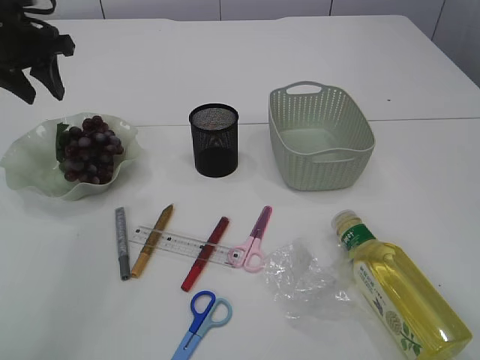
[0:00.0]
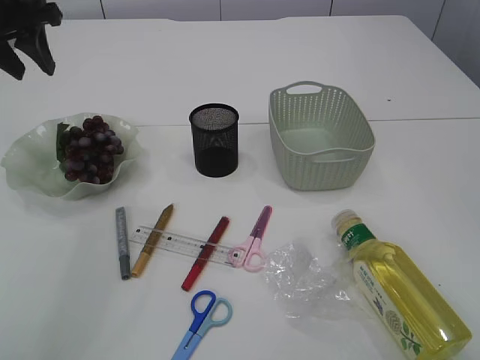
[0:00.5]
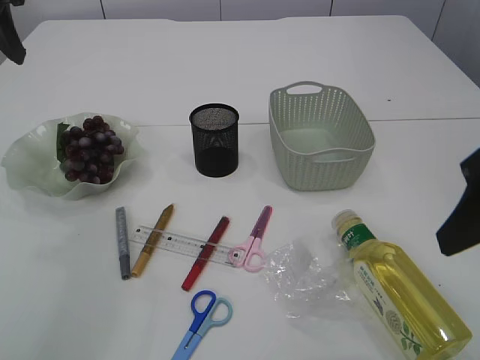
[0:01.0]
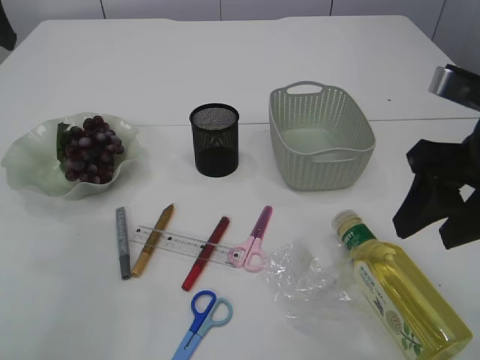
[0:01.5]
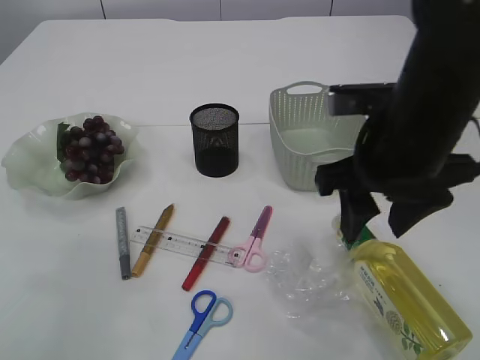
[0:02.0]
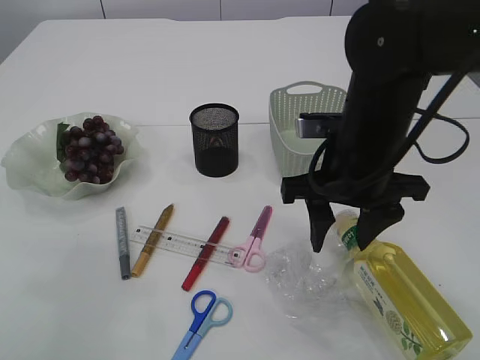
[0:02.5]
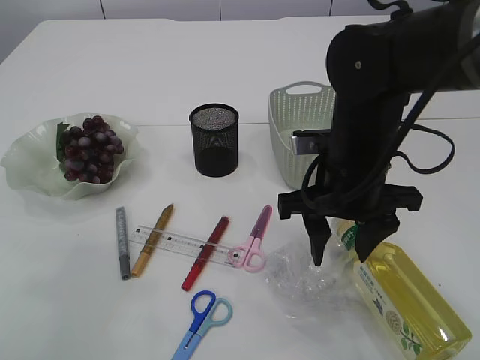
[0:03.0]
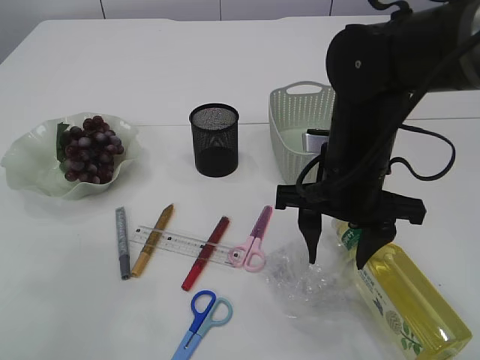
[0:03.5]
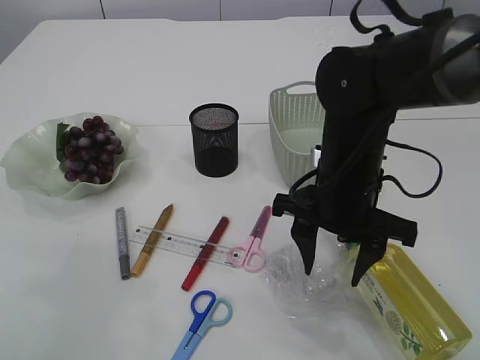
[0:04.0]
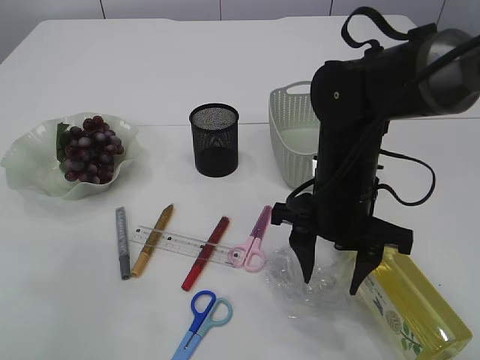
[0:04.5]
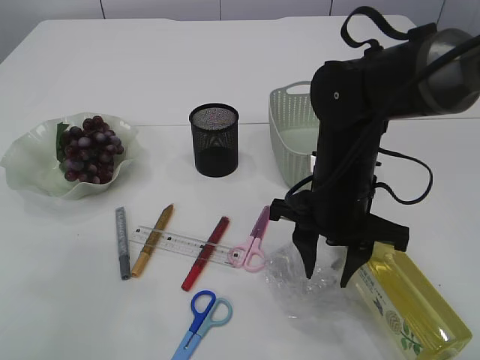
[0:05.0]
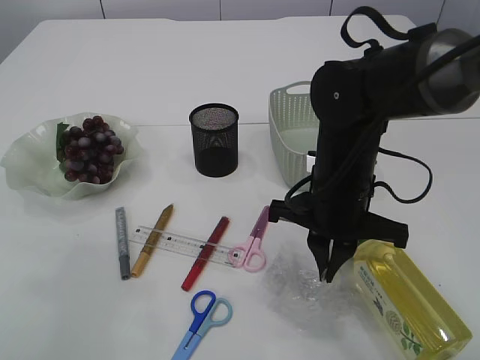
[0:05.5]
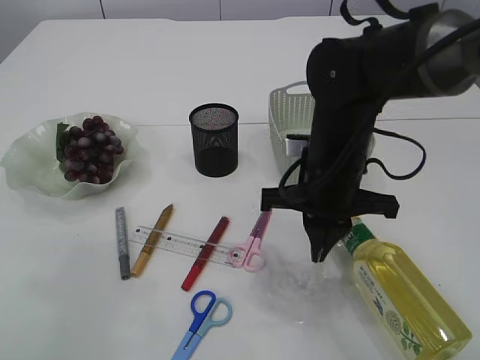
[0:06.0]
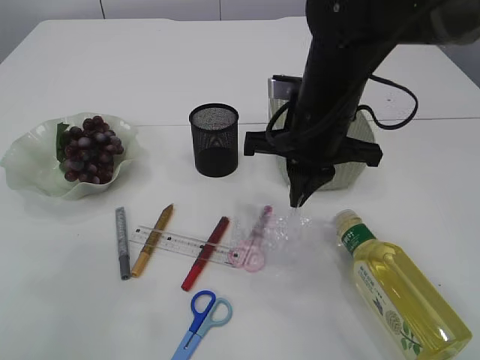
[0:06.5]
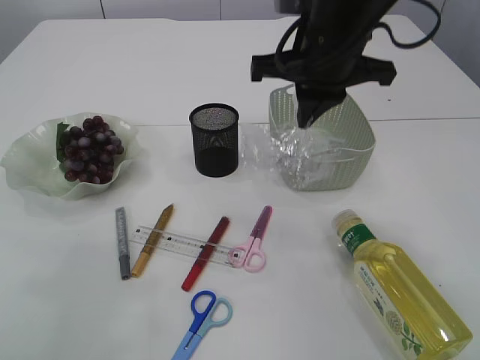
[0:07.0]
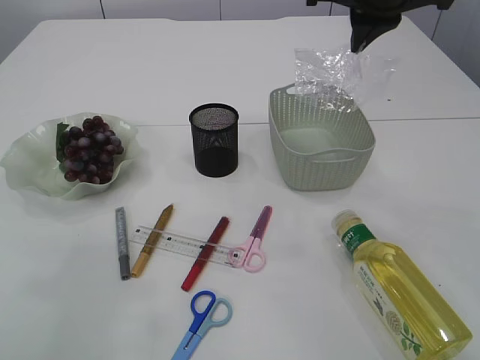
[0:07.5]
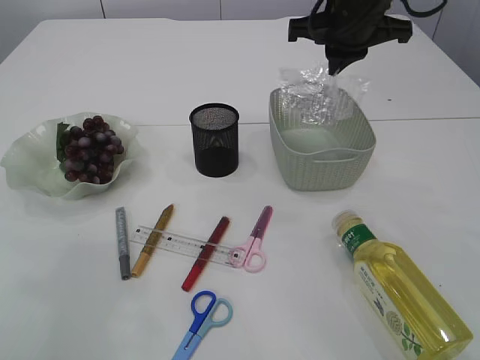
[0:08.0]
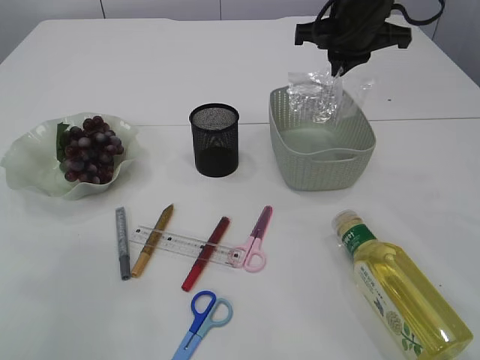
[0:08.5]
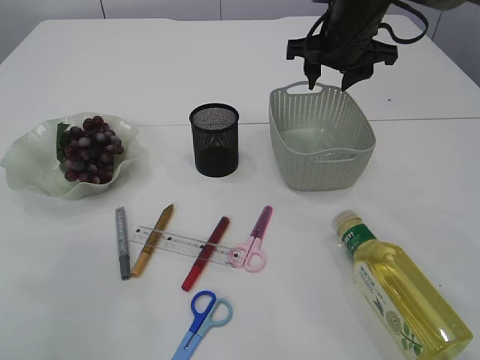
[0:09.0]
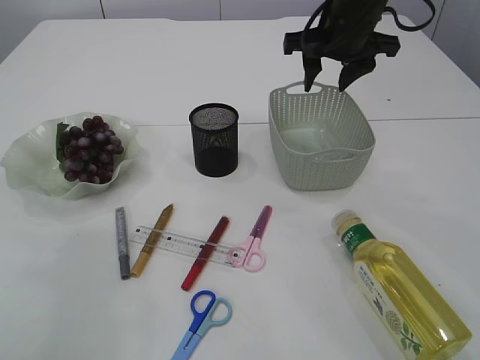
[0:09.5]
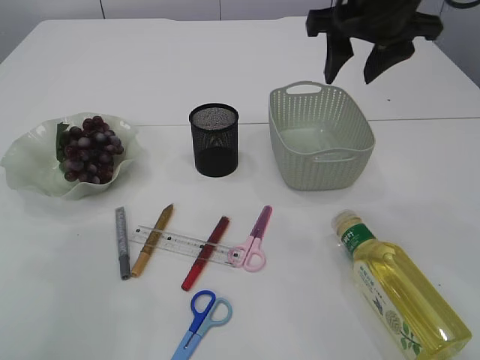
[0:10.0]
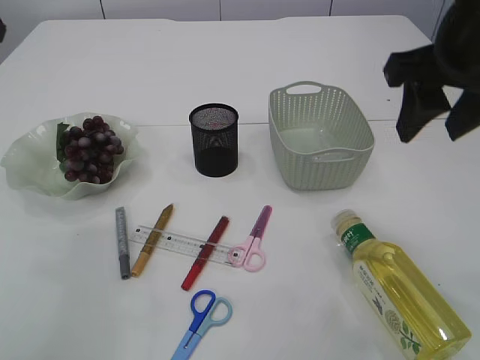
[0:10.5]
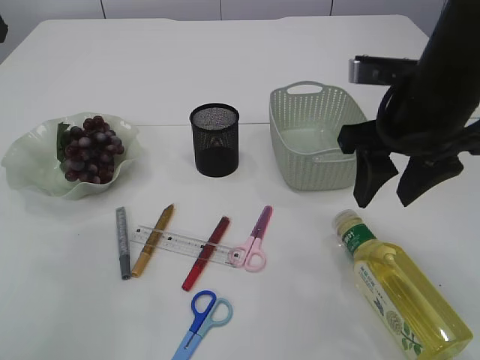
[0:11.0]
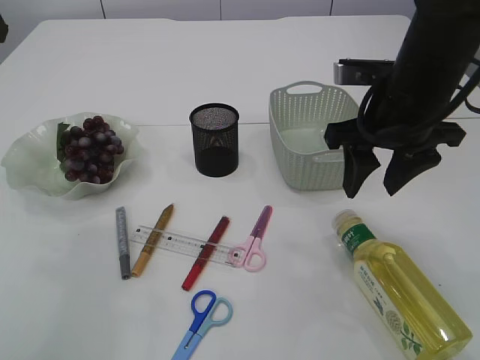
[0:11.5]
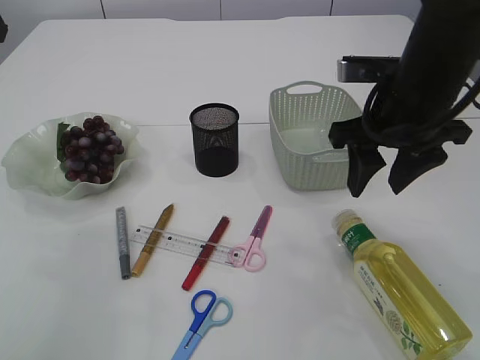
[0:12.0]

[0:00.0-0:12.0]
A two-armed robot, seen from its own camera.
Step, 0:00.0 to 0:06.0: Pick up the plastic.
Step, 0:06.5 to 0:09.0: Place the plastic in the basket.
0:00.0 to 0:02.0: The right gripper moves forward and to the left, roughly 20 cm, while the left gripper moves upward and backward, about 15 cm.
0:02.0 to 0:04.0: The right gripper shifts roughly 10 cm downward.
0:04.0 to 0:06.0: The right gripper closes up.
0:06.0 to 0:08.0: The right gripper heads upward and forward, covering roughly 15 cm.
0:08.0 to 0:10.0: The right gripper ends up approximately 5 cm from where it was, and opens.
0:10.0 to 0:12.0: The right gripper moves downward and backward, approximately 10 cm.

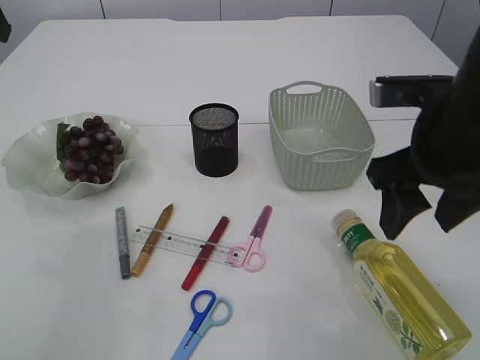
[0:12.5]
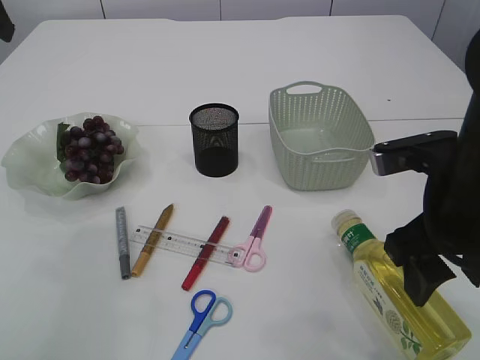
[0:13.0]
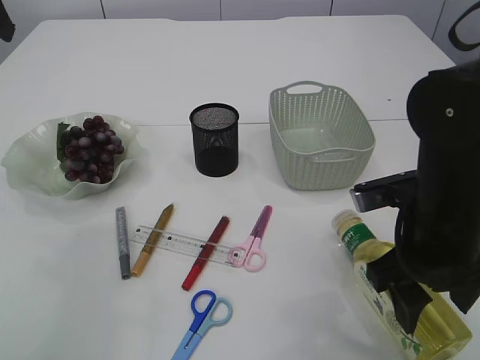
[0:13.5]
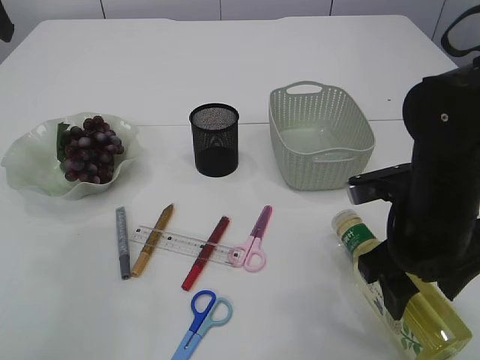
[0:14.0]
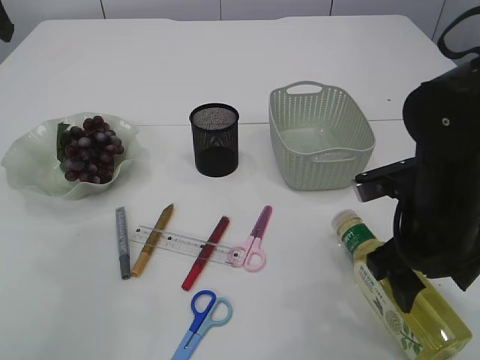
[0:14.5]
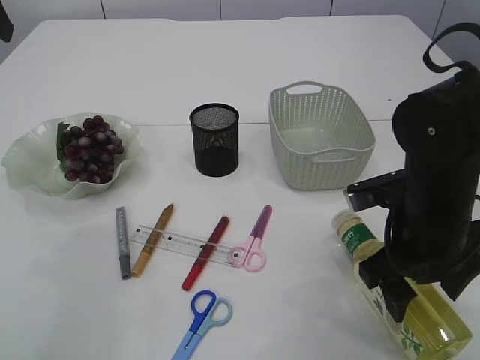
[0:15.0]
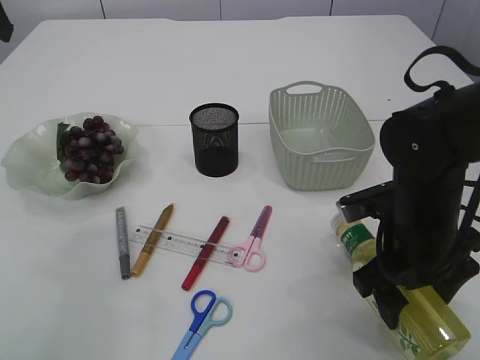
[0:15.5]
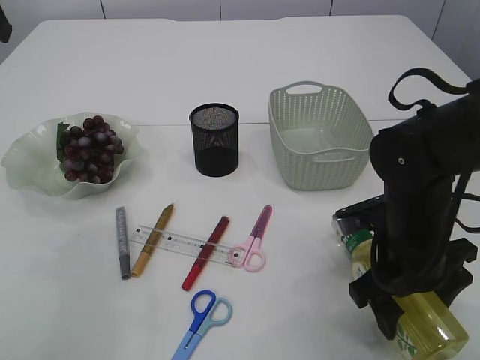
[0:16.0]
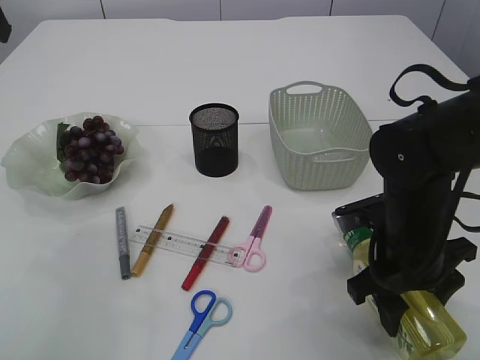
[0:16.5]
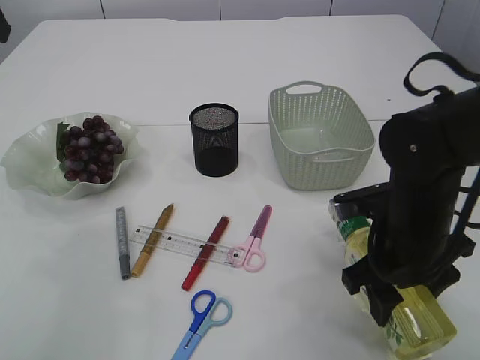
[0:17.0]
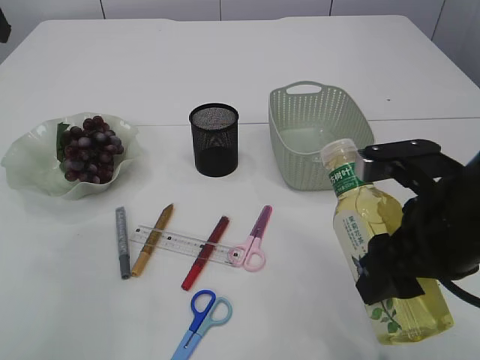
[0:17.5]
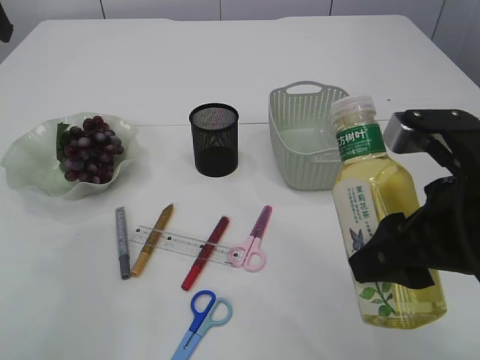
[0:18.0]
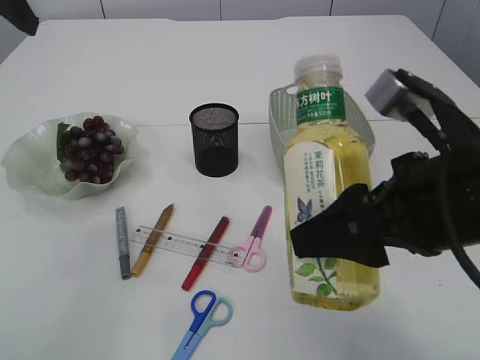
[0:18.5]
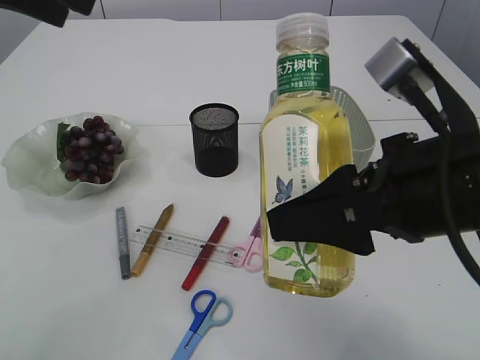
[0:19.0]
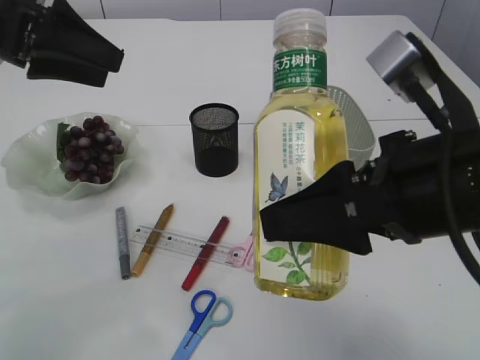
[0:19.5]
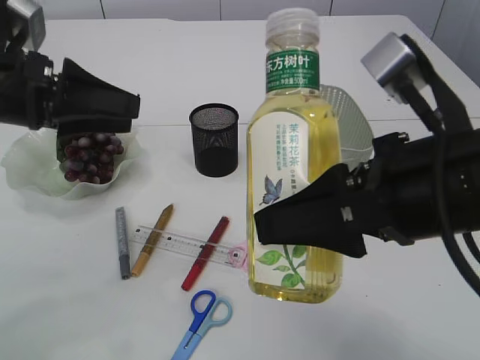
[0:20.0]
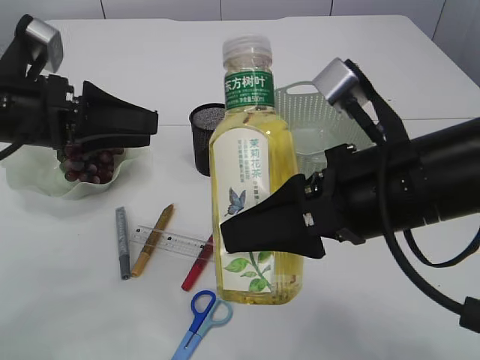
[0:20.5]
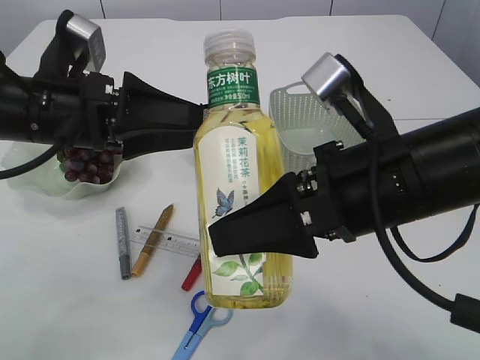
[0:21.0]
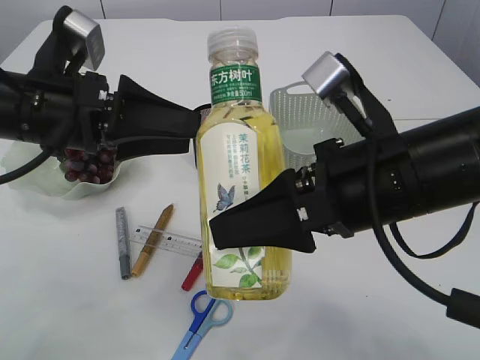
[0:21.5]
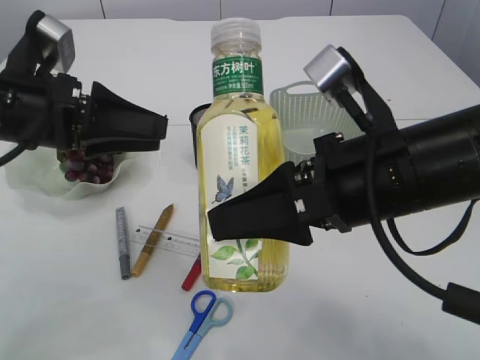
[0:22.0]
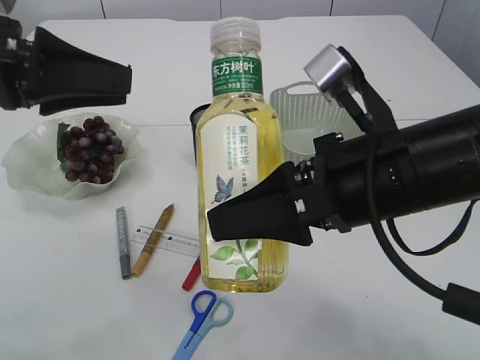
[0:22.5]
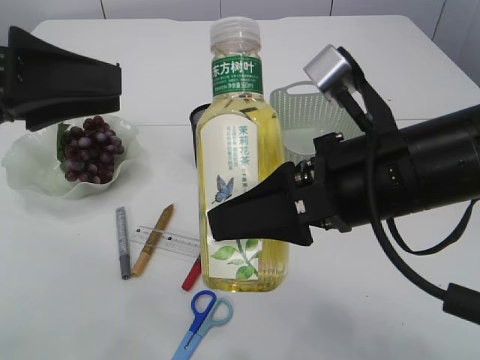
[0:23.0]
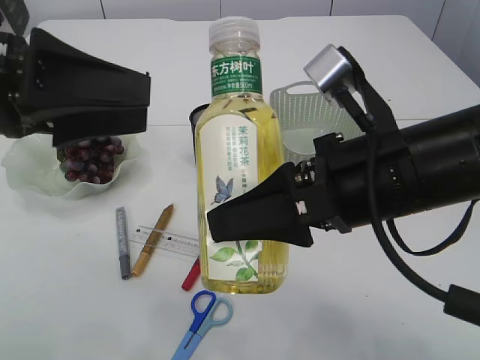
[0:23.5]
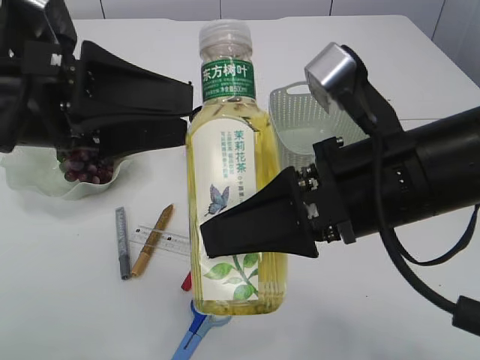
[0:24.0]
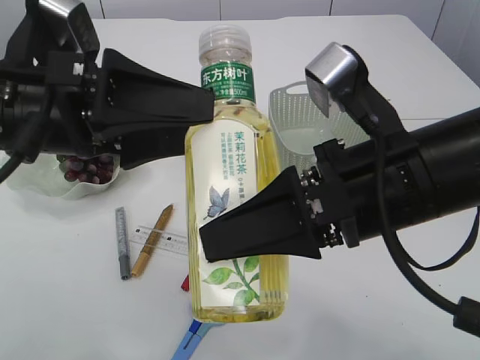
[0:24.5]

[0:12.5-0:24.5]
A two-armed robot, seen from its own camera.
Step, 0:12.5 to 0:17.5: Pick up the bottle with the right arm.
0:12.5 to 0:14.5: The right gripper heads downward, covering approximately 10 cm.
0:14.5 to 0:16.5: The right gripper shifts approximately 5 cm downward.
0:16.5 to 0:18.5: The right gripper moves upward and backward, some 15 cm.
0:18.5 to 0:20.5: The left gripper travels downward by approximately 15 cm.
0:20.5 to 0:22.5: The left gripper is displaced upward by some 5 cm.
0:22.5 to 0:24.5: The left gripper heads to the right, covering about 5 cm, and opens up.

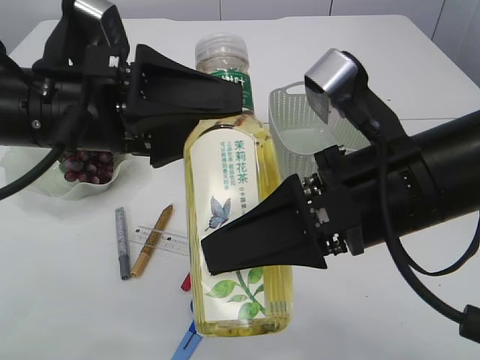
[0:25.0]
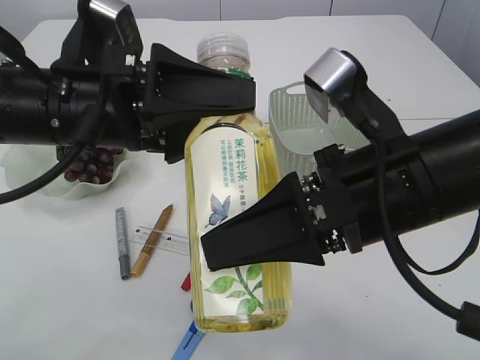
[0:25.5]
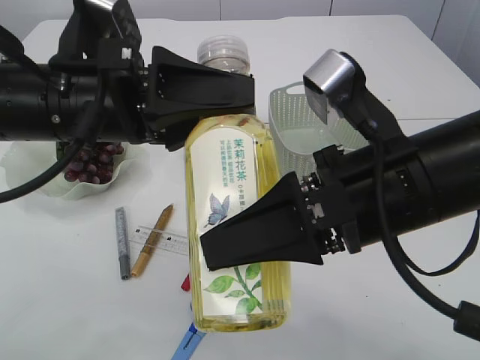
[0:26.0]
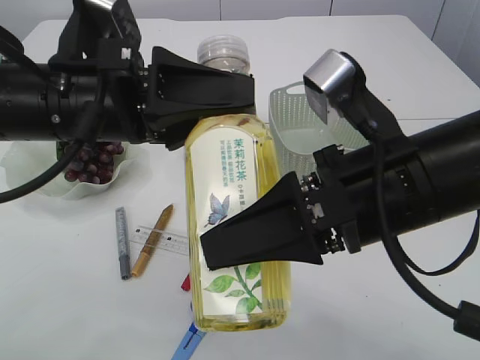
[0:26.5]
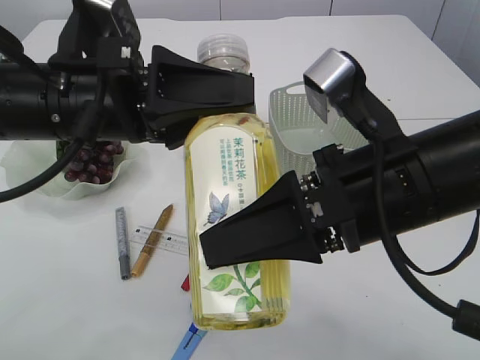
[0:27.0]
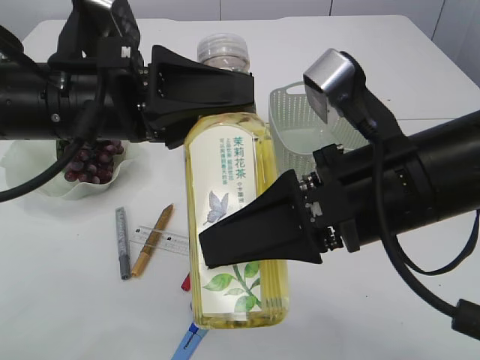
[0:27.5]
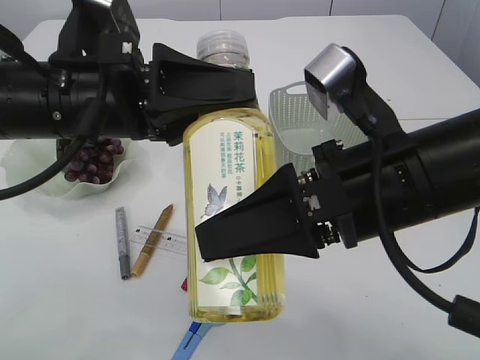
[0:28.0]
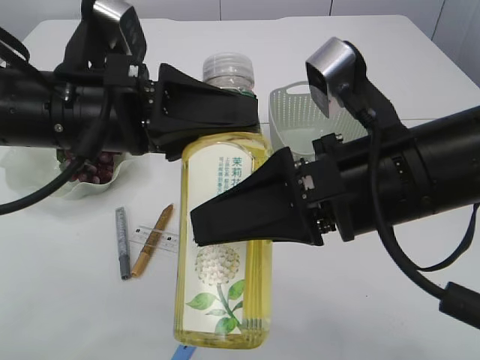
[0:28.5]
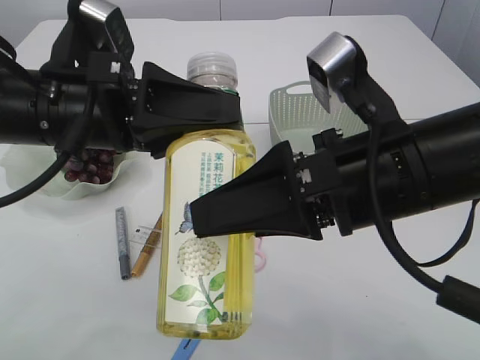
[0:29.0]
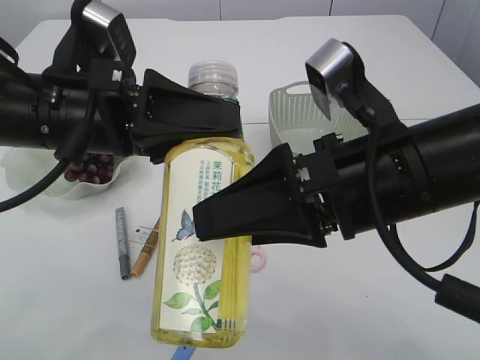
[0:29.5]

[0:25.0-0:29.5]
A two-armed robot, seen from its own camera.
0:25.0 to 0:27.0: The left gripper closes up.
